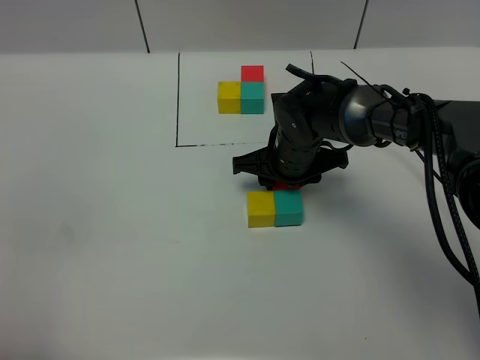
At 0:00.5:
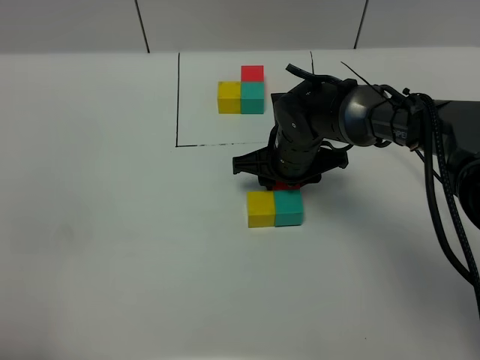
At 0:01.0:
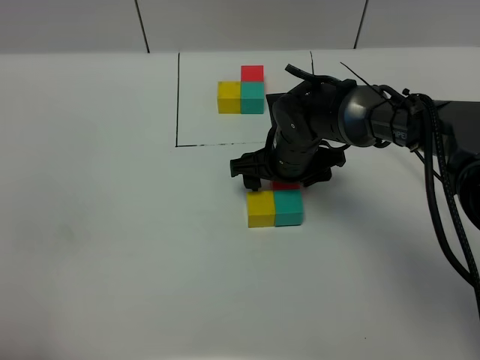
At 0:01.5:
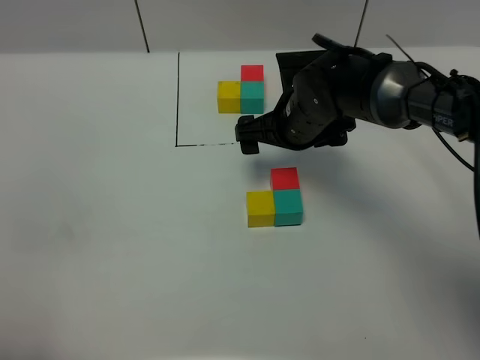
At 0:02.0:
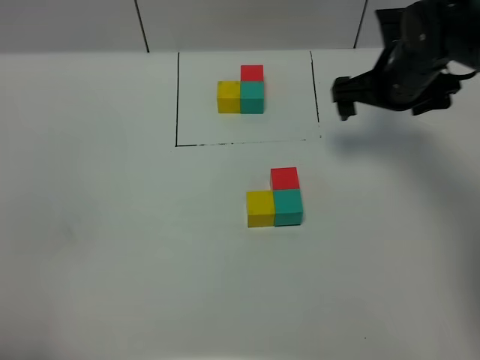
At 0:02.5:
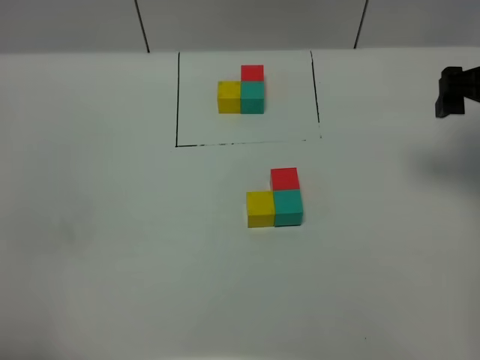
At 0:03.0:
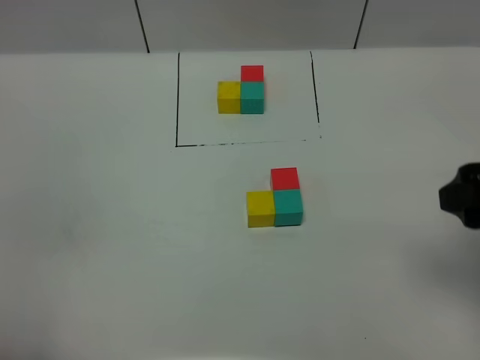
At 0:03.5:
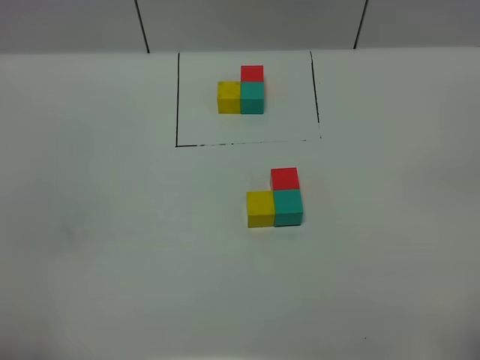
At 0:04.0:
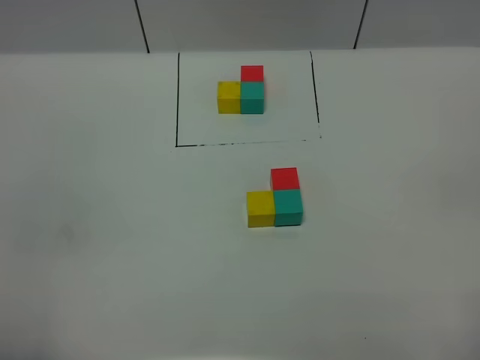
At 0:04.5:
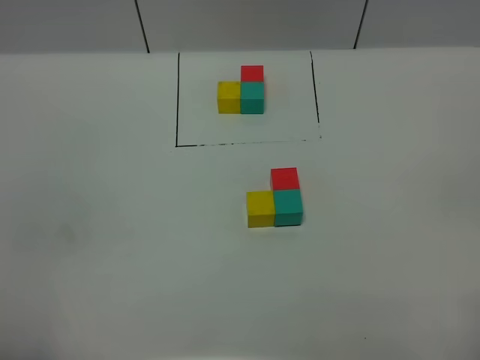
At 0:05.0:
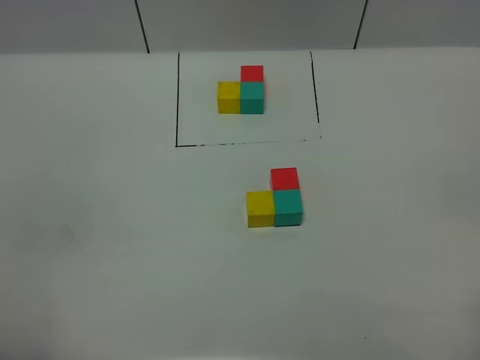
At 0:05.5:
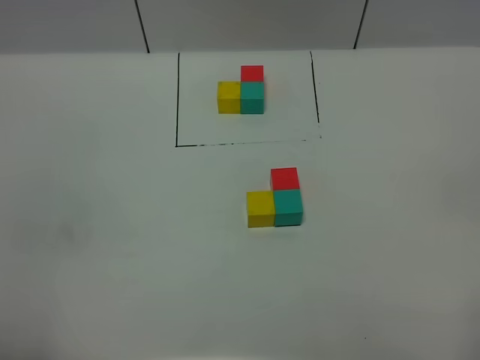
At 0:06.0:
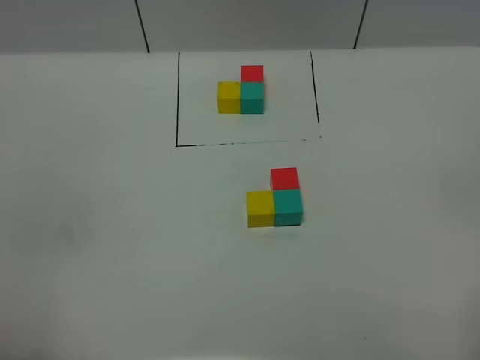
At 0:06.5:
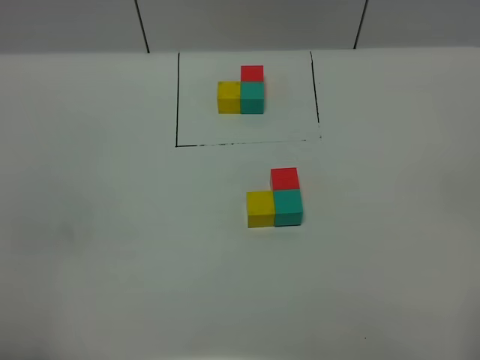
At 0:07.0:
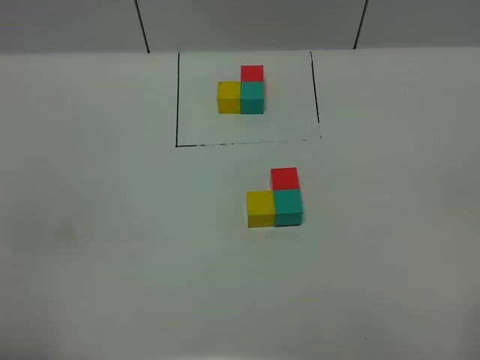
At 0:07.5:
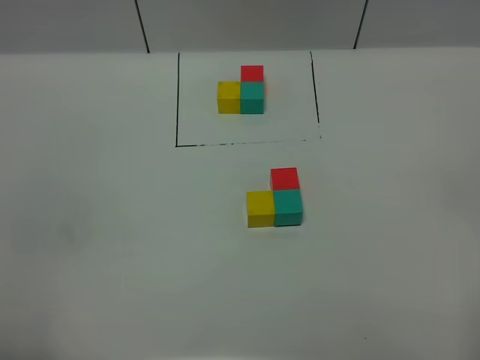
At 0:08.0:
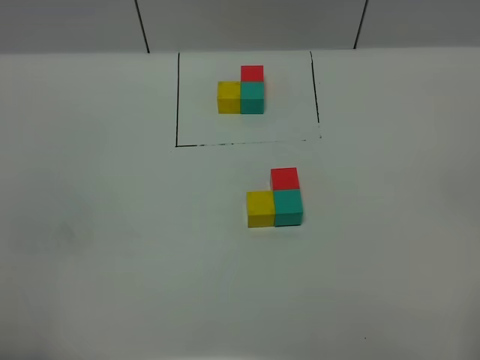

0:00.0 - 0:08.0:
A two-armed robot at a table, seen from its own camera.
Task of the whole recording: According to the building block template in front, assemble the scattered blocks together.
0:00.0 - 0:02.0: The right gripper shifts about 20 cm to the right and upward, and opens.
0:02.0 - 0:04.0: The right gripper goes approximately 40 cm backward.
0:06.0 - 0:08.0: Neither gripper changes place.

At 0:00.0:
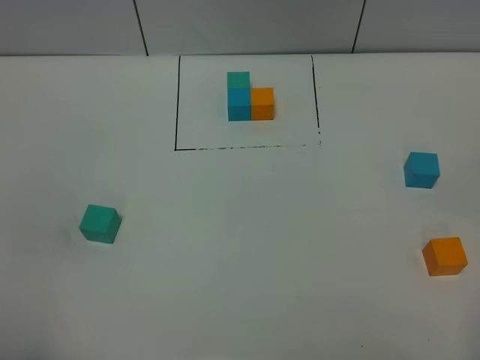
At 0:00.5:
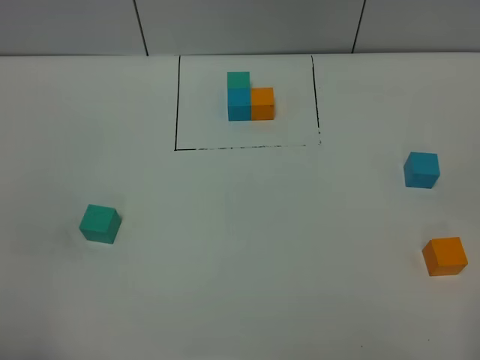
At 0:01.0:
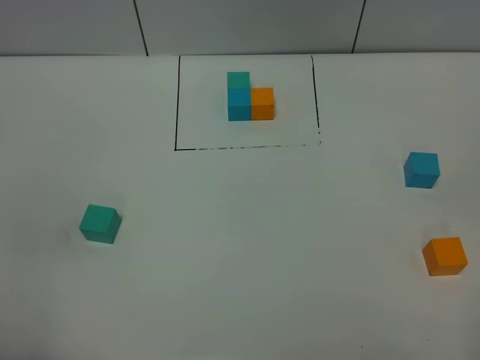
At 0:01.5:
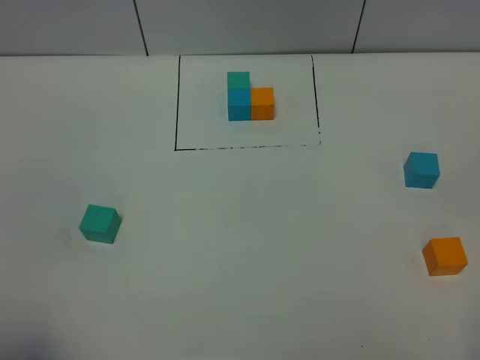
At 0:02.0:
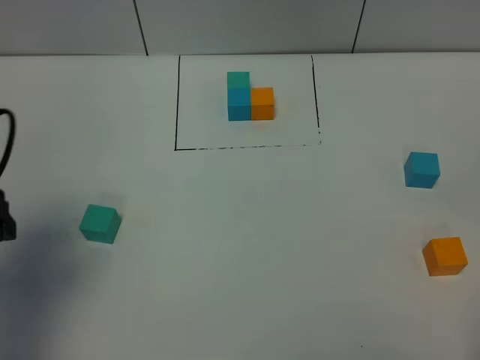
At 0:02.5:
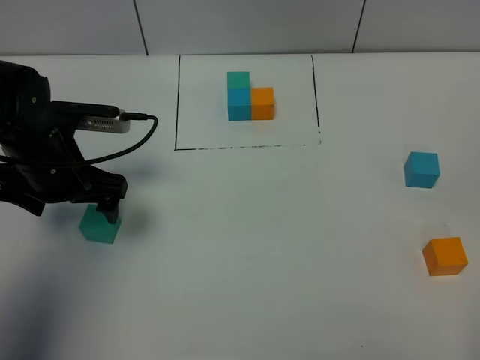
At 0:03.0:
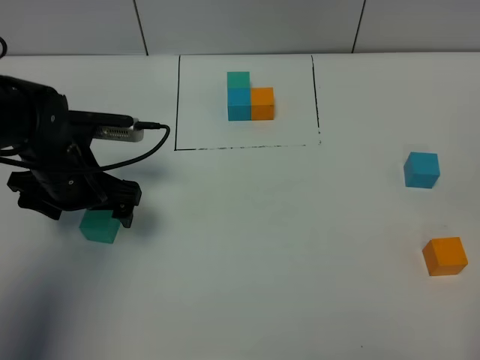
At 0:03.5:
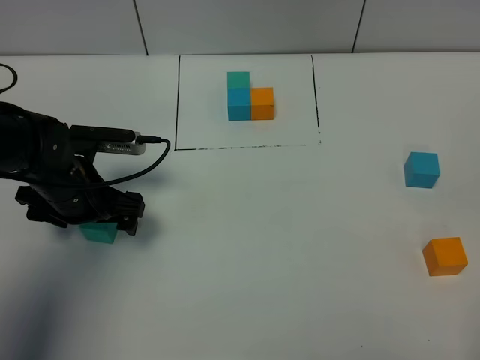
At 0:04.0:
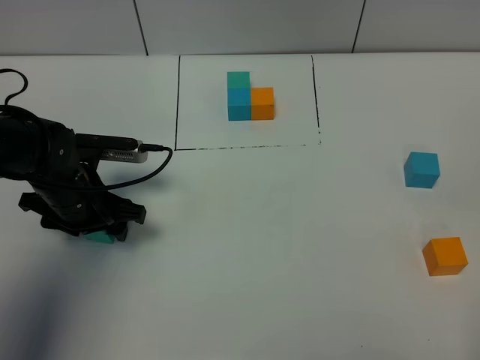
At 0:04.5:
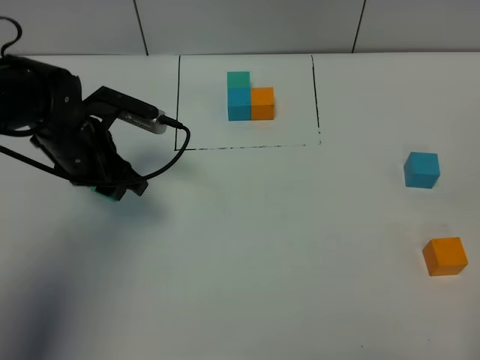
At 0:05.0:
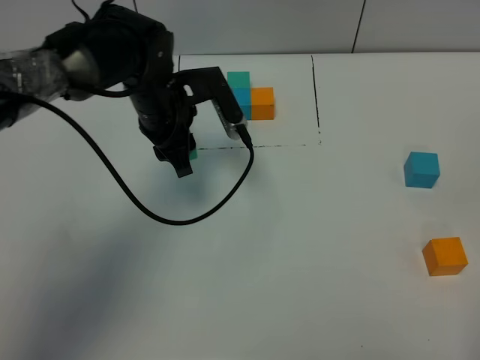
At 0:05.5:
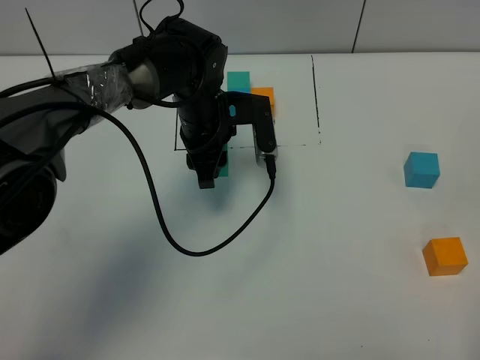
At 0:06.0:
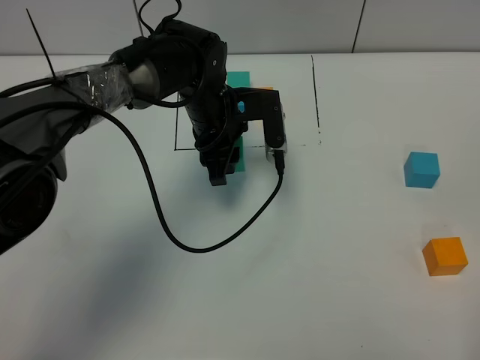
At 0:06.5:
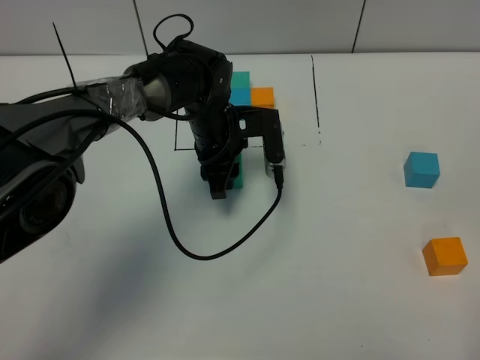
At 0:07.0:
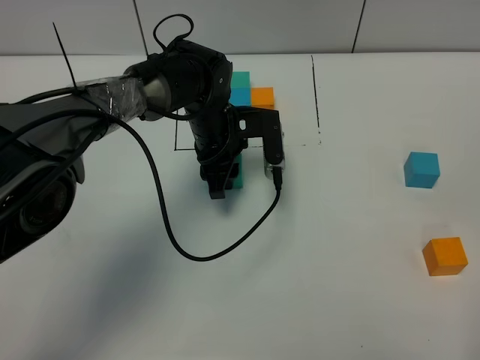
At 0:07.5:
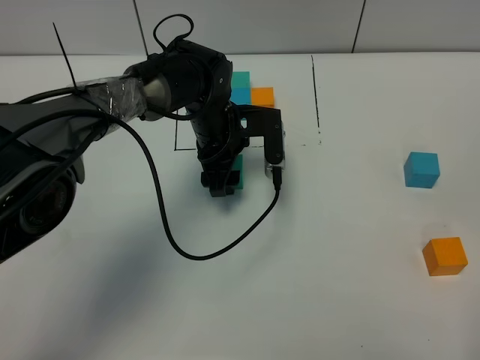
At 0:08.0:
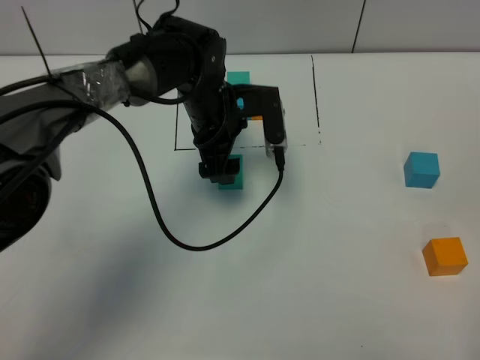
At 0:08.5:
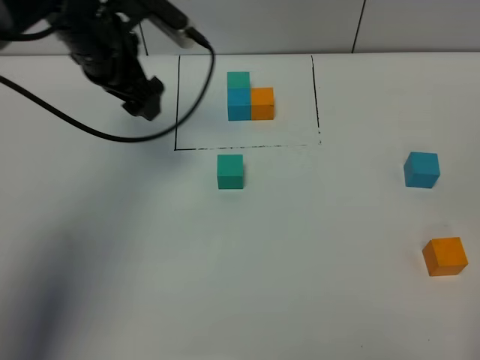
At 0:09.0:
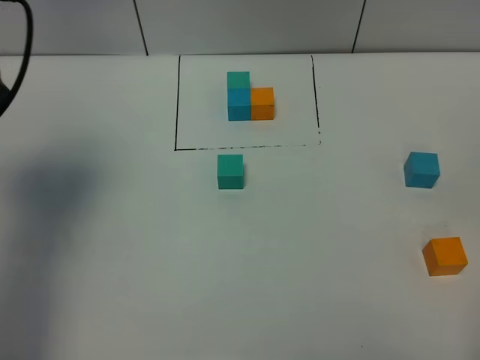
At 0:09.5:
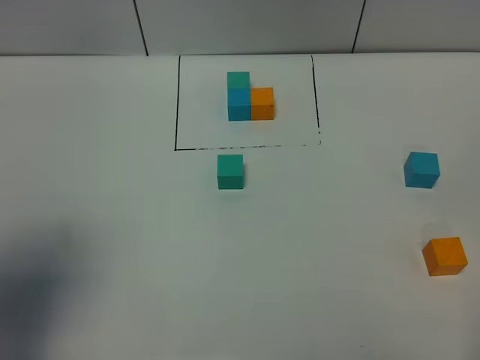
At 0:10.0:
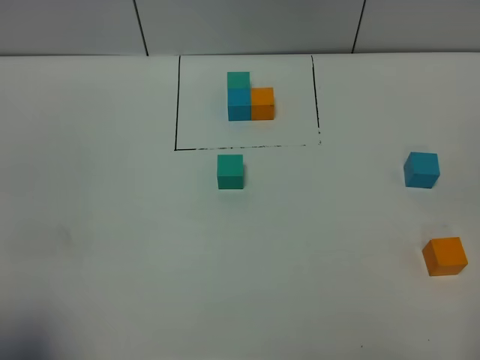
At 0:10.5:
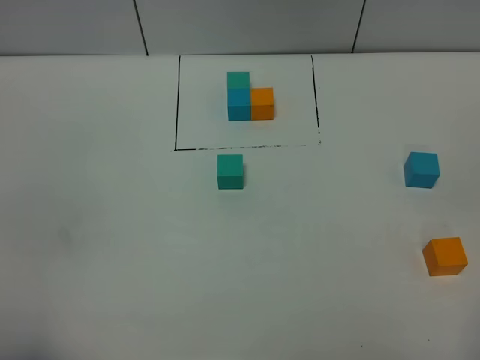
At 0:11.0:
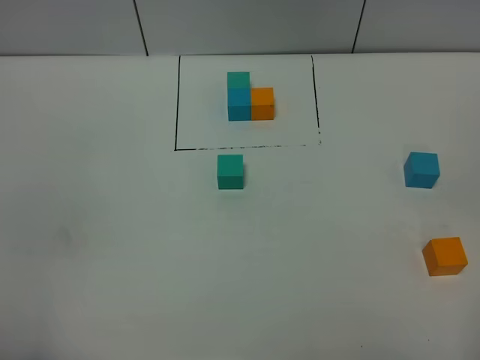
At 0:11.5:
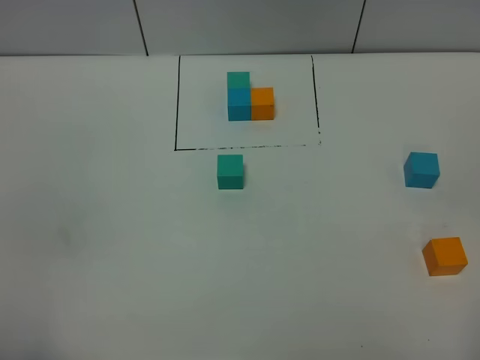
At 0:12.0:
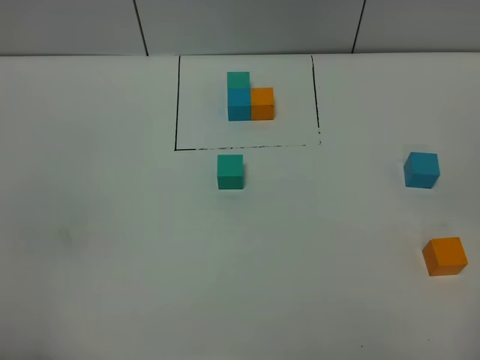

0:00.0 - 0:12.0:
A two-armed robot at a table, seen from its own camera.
Task of the whole recording: According to the building block template in front, assemble the scattered blocks together.
Step, 0:00.0 - 0:07.0: Put the green build block in the center of the table.
0:00.0 - 0:02.0: The left gripper heads forward, covering approximately 20 cm, and opens up.
0:02.0 - 0:04.0: The left gripper moves downward, forward and to the right, about 20 cm, and closes up.
0:04.0 - 0:06.0: The left gripper travels to the right and forward by approximately 20 cm, and closes up.
0:06.0 - 0:08.0: The left gripper opens its fingers.
0:08.0 - 0:10.0: The left gripper moves backward, to the left and upward, approximately 50 cm.
0:10.0 - 0:12.0: The left gripper ends up some 5 cm from where it was.

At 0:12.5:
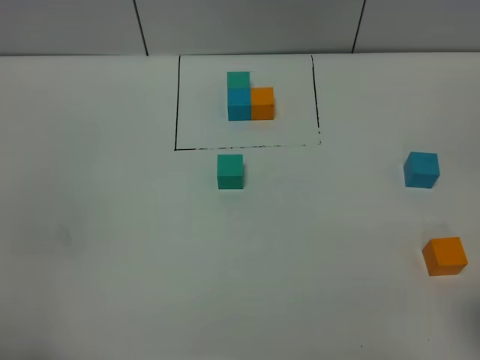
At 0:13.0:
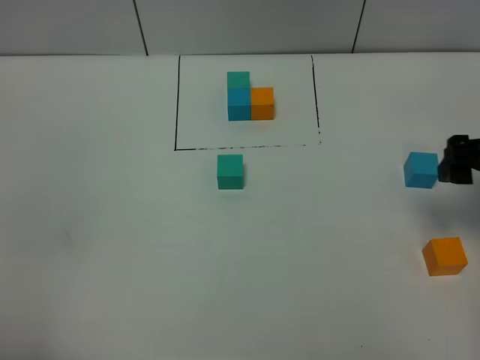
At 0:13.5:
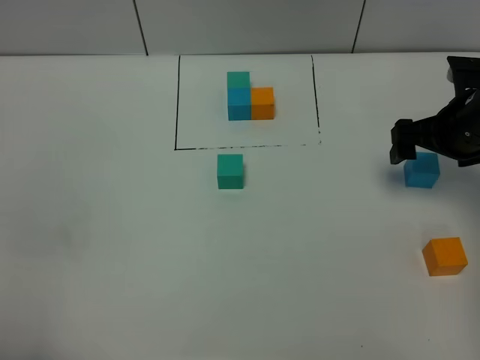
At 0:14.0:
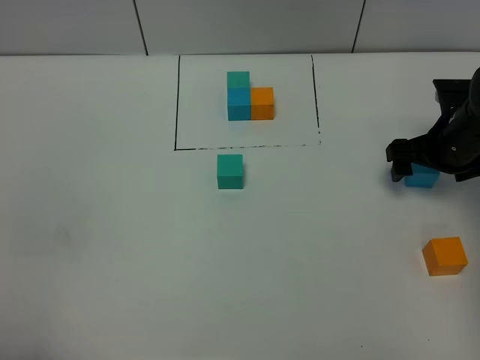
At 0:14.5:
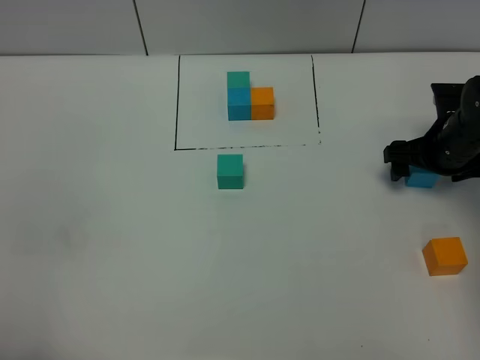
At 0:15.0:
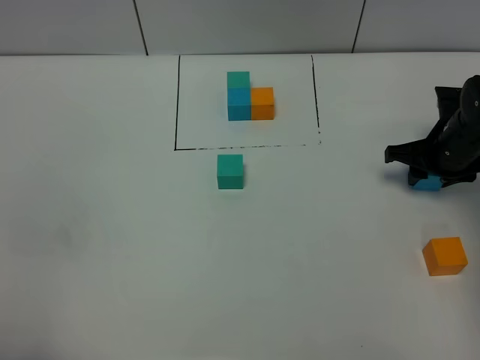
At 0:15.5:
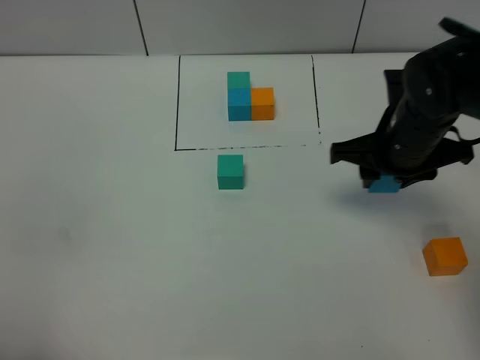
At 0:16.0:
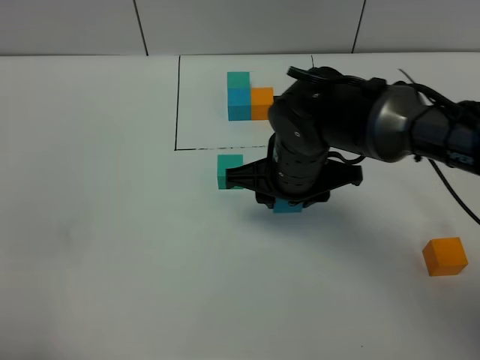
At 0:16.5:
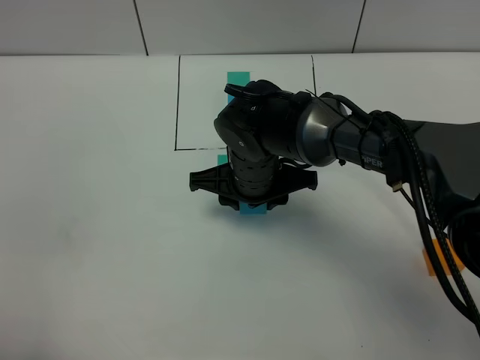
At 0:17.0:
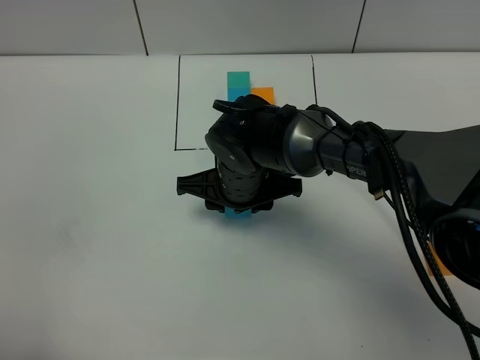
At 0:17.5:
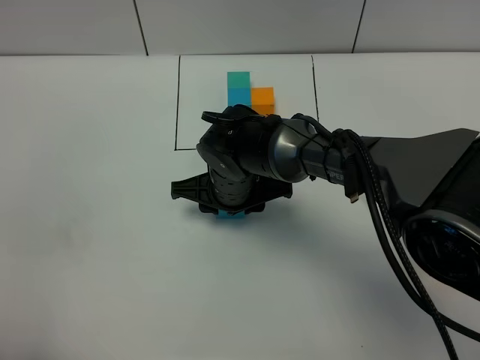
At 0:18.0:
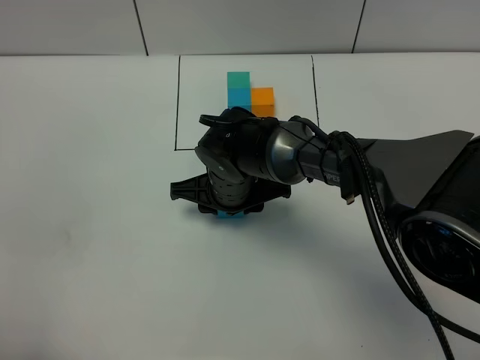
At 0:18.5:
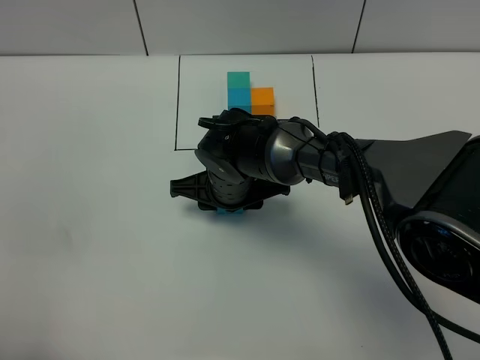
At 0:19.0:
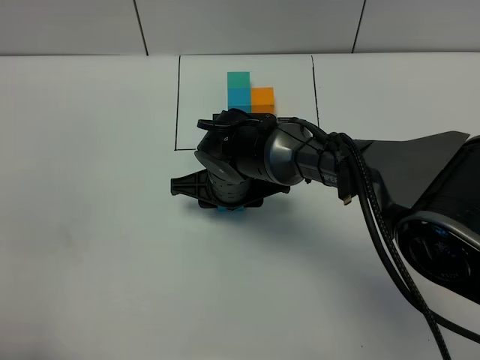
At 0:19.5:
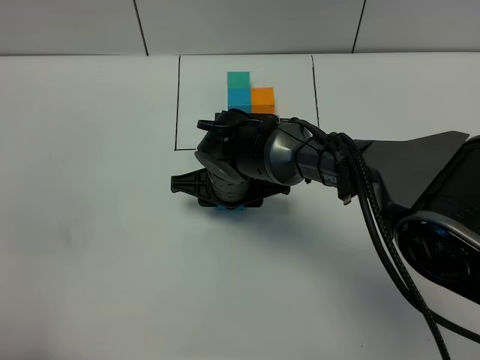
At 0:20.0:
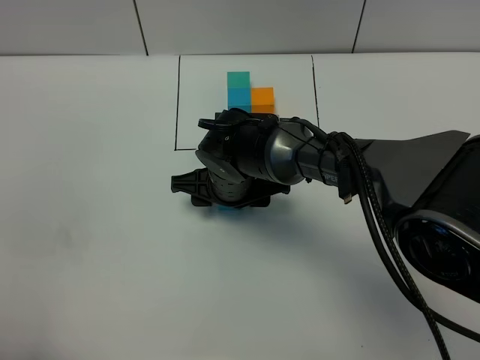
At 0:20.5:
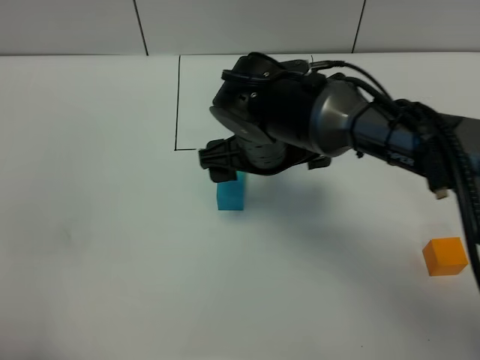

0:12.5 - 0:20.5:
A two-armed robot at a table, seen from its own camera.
Task of the whole recording: According to the building block template in front, assemble the scattered blocks together.
Step, 0:12.5 - 0:20.0: Put the blue build block on the behind of the green build block.
0:12.5 - 0:14.5: The right gripper travels forward and downward by roughly 35 cm.
0:14.5 - 0:16.5: The right gripper heads to the left, covering about 30 cm, and closes up.
0:16.5 - 0:18.5: The grippers stay close to where they were, moving slightly.
0:18.5 - 0:20.5: The right gripper goes roughly 10 cm upward, and opens.
